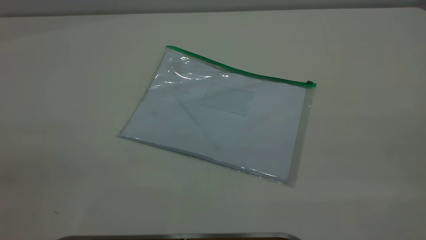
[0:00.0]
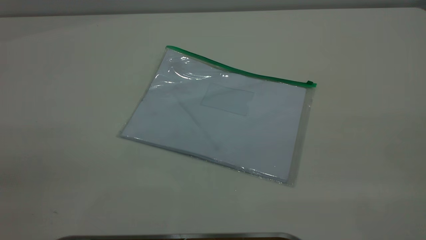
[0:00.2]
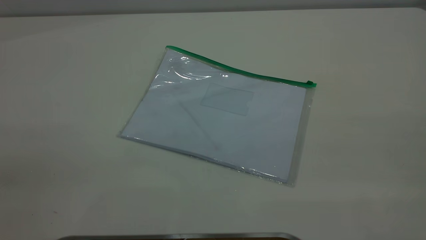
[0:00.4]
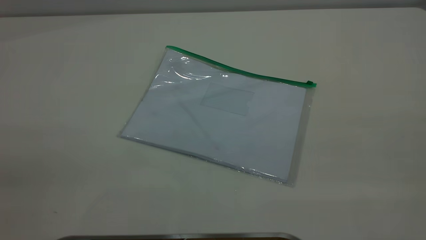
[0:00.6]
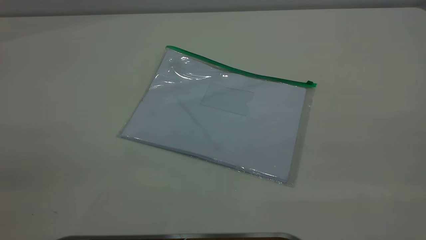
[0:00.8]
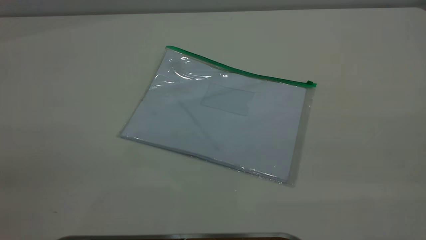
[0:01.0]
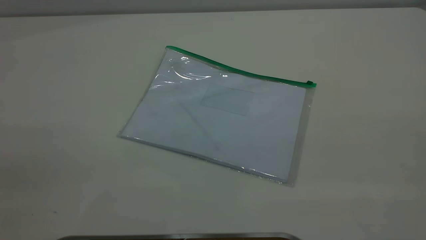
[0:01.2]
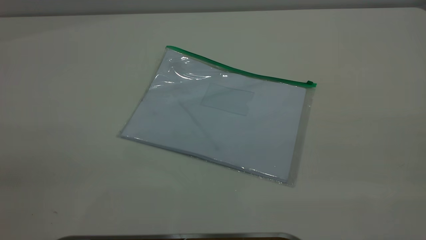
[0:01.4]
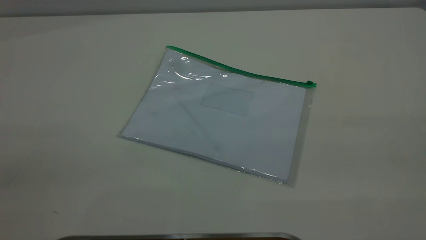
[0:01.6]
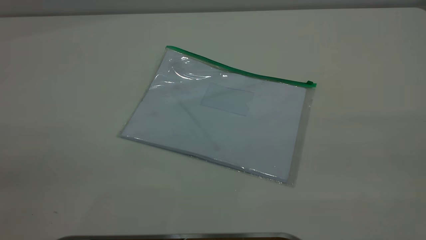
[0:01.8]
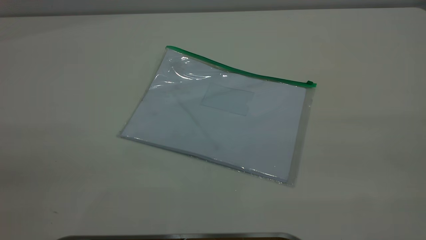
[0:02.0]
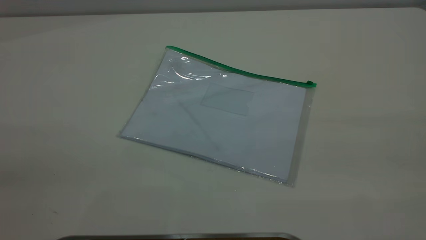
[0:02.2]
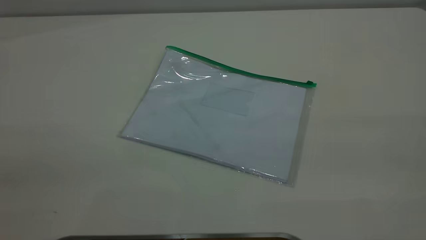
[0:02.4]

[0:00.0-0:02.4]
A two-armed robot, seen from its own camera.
0:00.0 to 0:01.2: Both grippers stay about where they are.

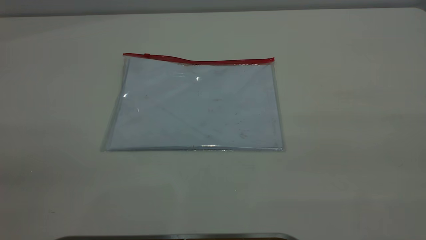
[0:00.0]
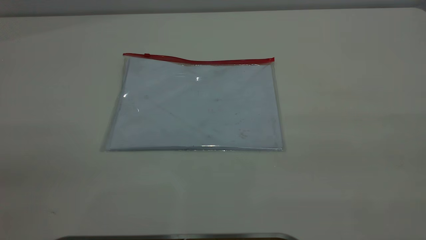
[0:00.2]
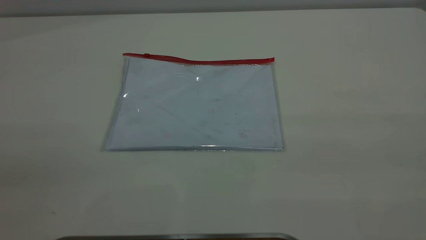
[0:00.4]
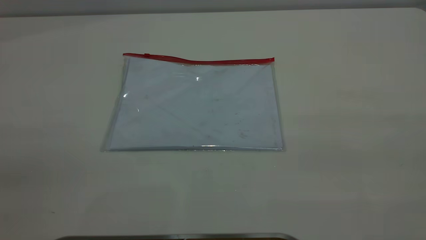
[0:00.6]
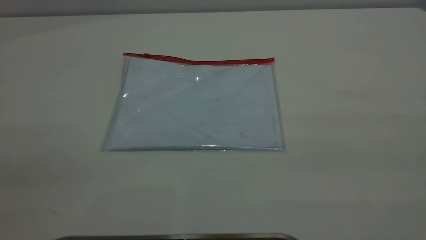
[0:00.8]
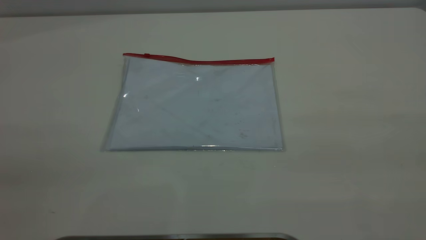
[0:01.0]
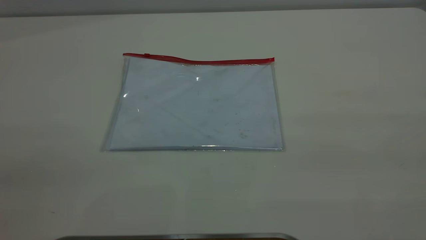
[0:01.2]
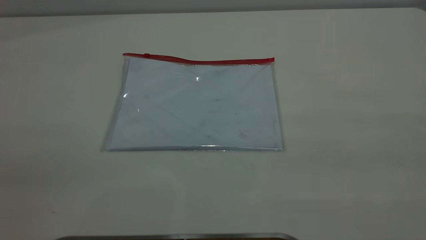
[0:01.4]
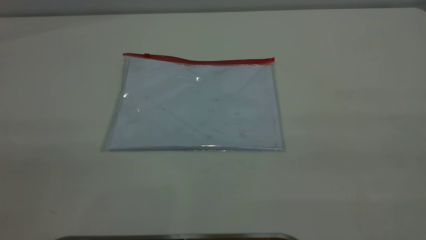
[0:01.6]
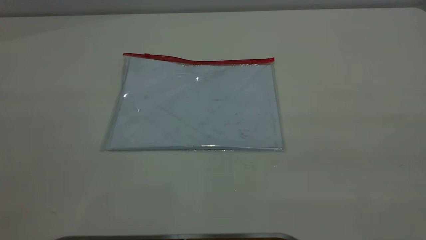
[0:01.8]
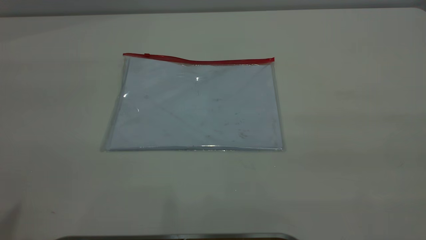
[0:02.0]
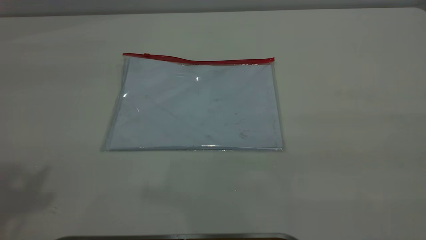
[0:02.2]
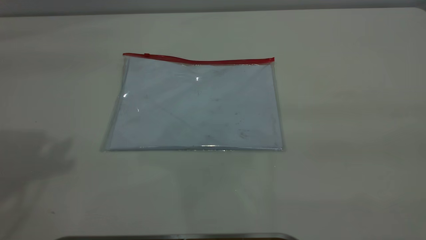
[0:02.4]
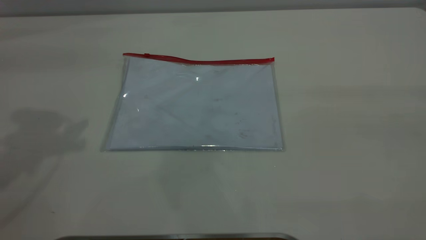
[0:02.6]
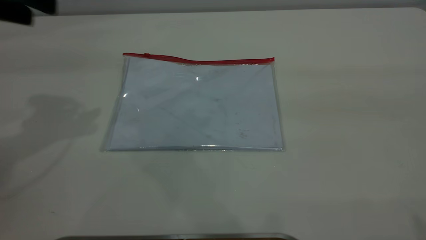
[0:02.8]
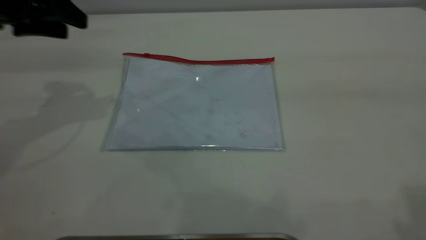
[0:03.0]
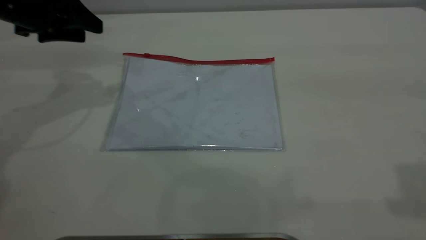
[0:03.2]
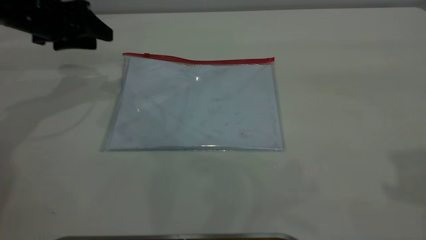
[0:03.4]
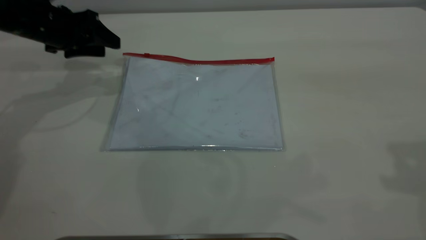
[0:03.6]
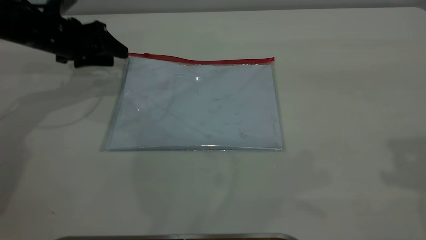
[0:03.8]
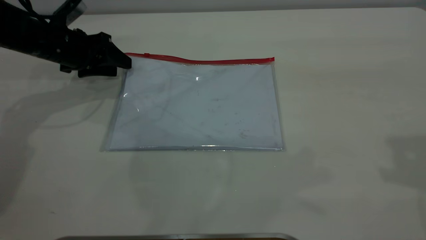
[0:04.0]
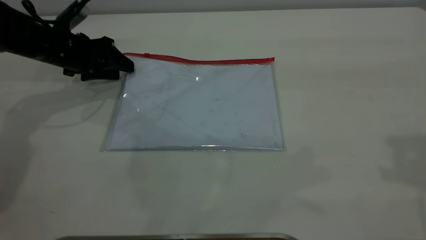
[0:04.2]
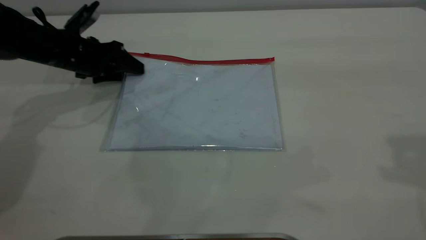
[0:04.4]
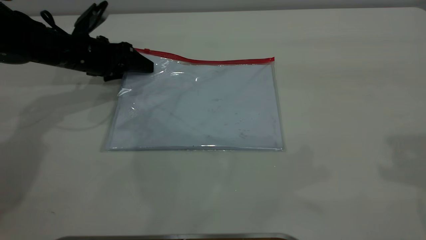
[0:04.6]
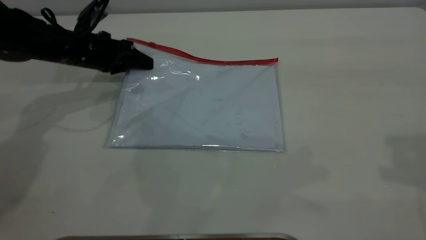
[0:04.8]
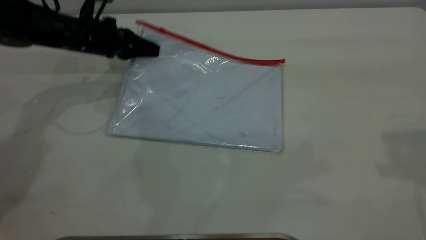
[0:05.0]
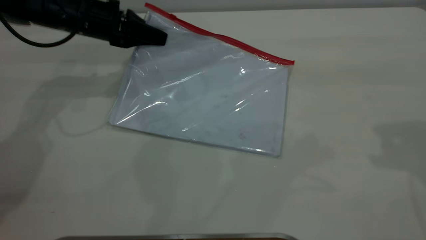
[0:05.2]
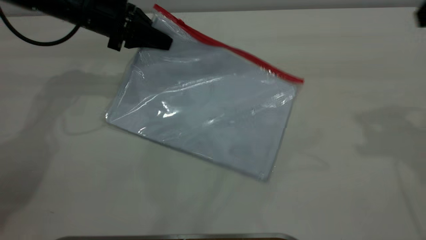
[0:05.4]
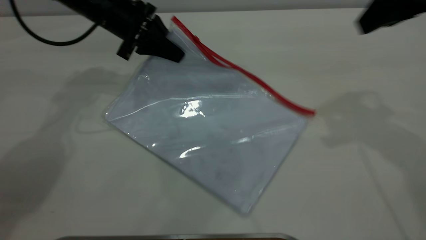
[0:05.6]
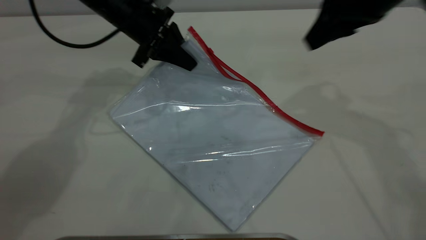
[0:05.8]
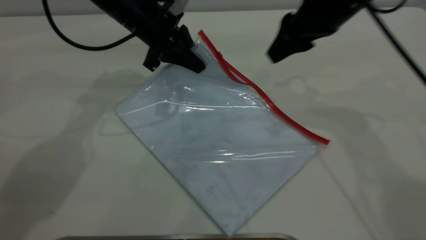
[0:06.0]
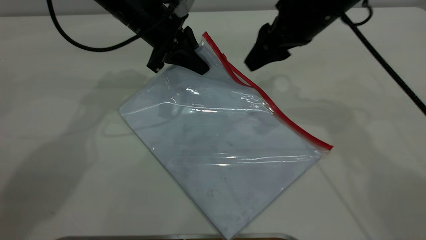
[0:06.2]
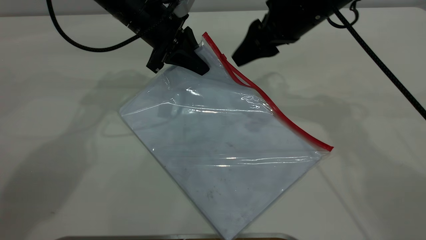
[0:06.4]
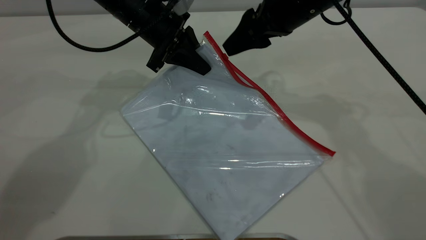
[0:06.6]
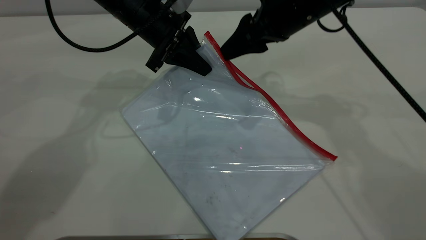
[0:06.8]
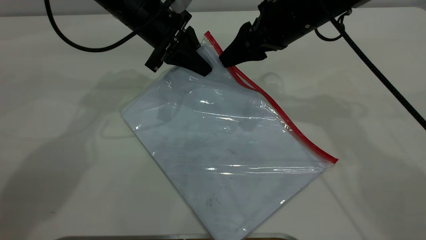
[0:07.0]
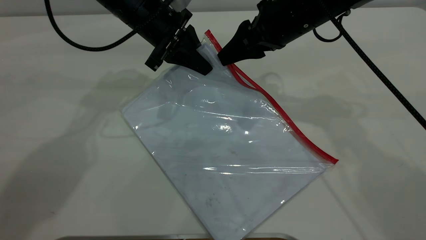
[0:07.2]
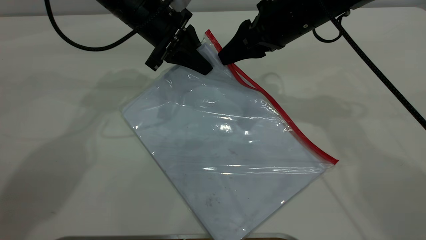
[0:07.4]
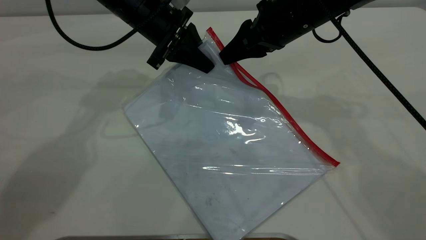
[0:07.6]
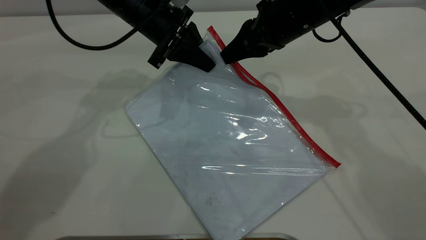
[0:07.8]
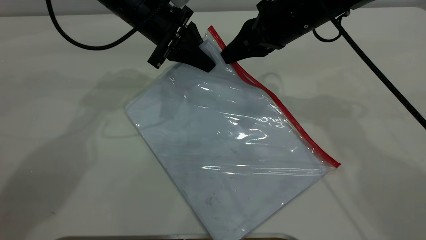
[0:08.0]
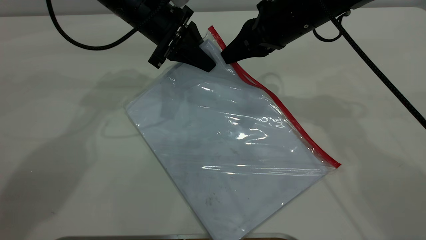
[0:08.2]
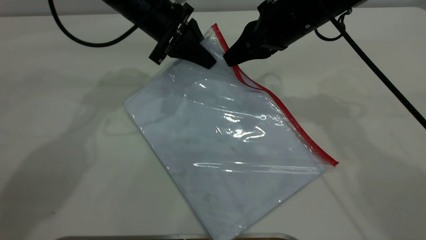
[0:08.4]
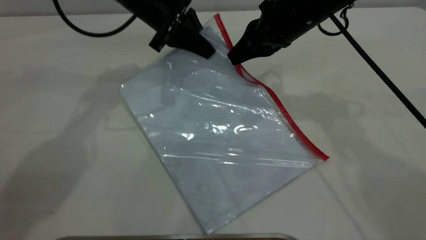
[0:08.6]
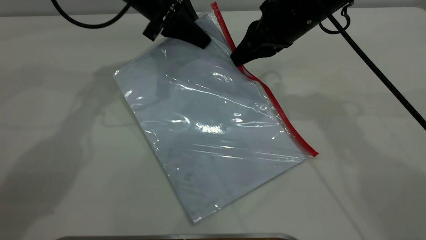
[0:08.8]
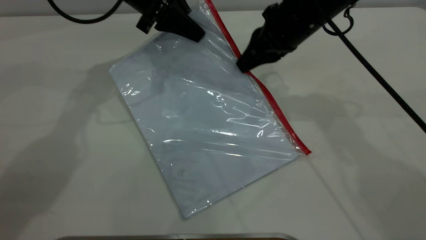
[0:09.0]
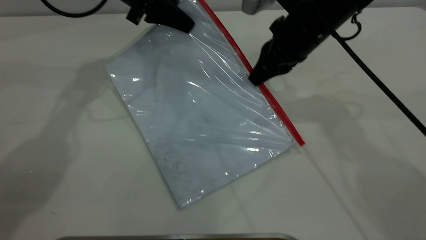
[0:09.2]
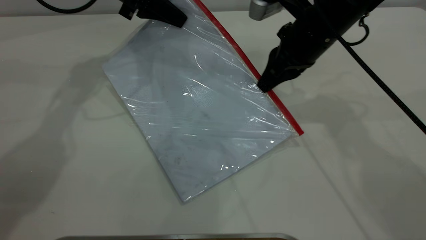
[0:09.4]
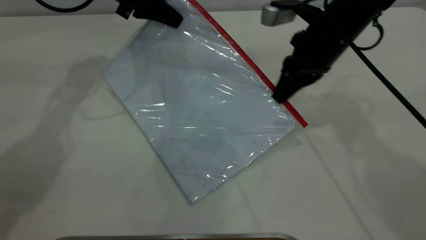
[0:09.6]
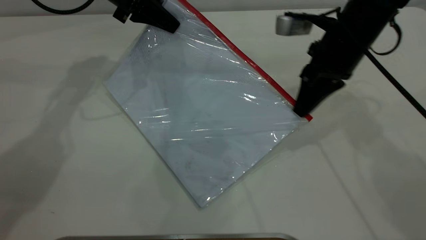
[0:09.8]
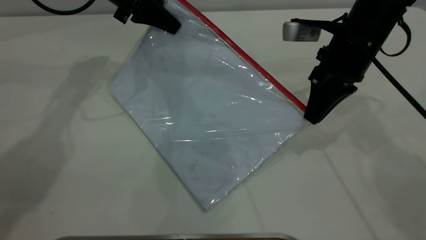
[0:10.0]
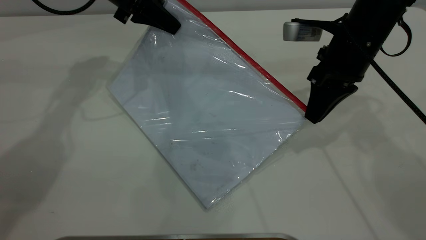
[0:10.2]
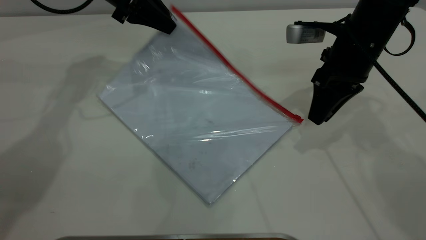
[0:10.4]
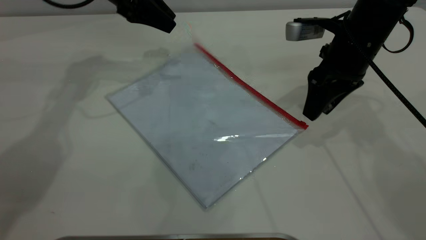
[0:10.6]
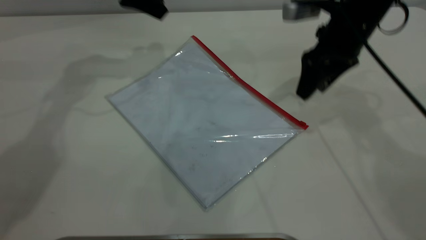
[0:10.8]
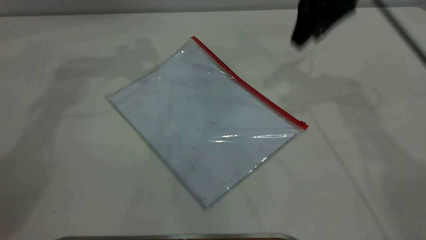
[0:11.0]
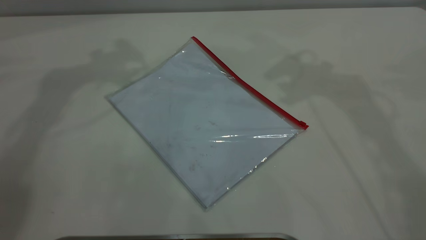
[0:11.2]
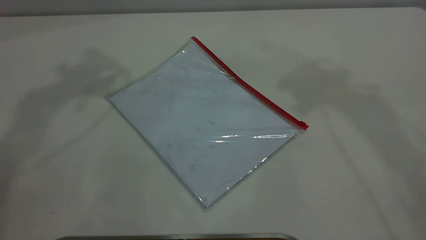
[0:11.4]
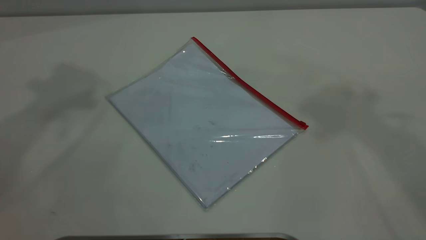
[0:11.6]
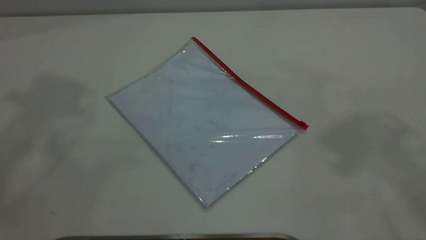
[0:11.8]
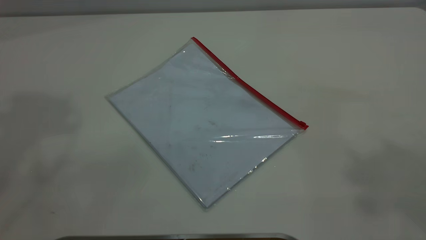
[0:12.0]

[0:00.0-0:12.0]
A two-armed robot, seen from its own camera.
Step, 0:00.0 to 0:04.8: Pick up the transparent plastic bag with the left gripper.
Step, 0:05.0 to 0:10.2: Pulling up the zipper on the transparent plastic bag with the right gripper to close it.
Step, 0:10.4 to 0:10.6: Place the transparent plastic bag.
0:01.6 to 0:03.0: The left gripper goes about 40 cm forward and downward.
0:03.0 to 0:04.4: The left gripper shifts roughly 15 cm downward and forward.
0:04.4 to 0:06.0: The left gripper is displaced to the right and upward by approximately 15 cm, and closes; the right gripper goes some 25 cm forward, to the left and downward.
0:06.0 to 0:07.6: The right gripper closes its fingers.
0:07.6 to 0:09.0: The left gripper shifts by approximately 5 cm.
0:09.0 to 0:10.4: The right gripper shifts some 5 cm to the right, and opens its fingers, while the left gripper opens up.
0:10.4 to 0:12.0: Both grippers move upward and backward, about 50 cm. The right gripper opens its fingers, while the left gripper opens.
